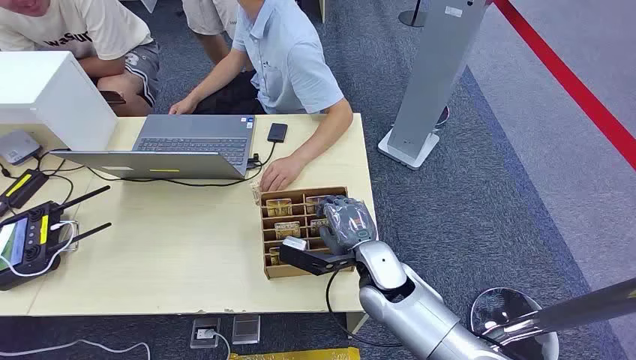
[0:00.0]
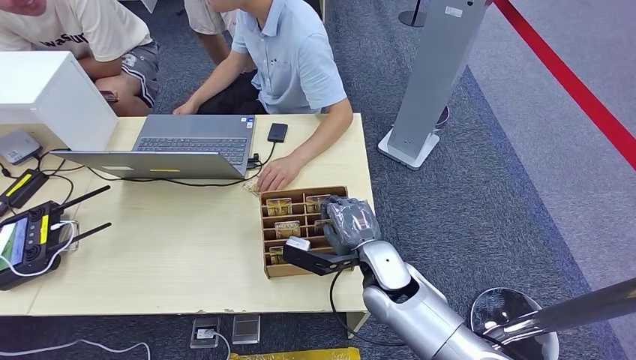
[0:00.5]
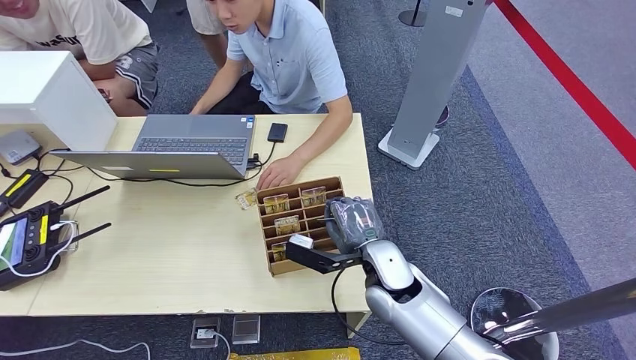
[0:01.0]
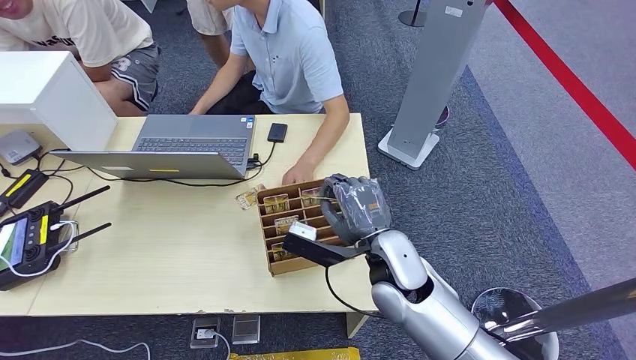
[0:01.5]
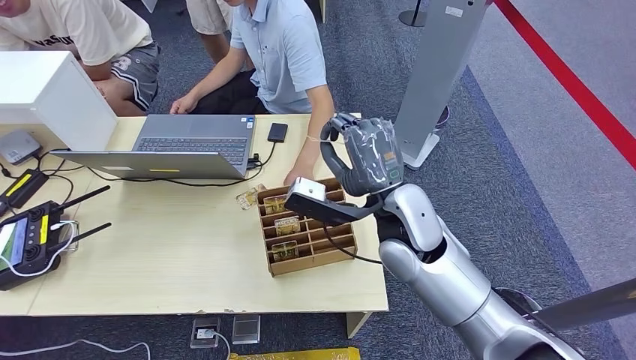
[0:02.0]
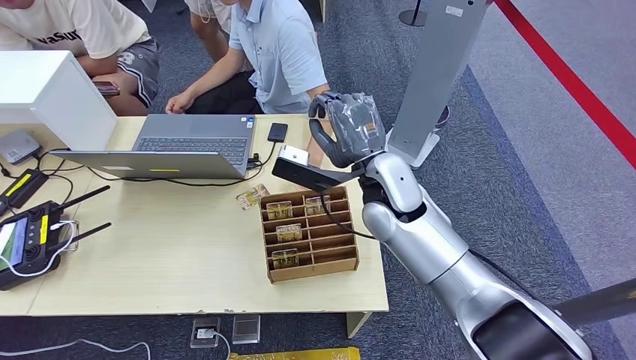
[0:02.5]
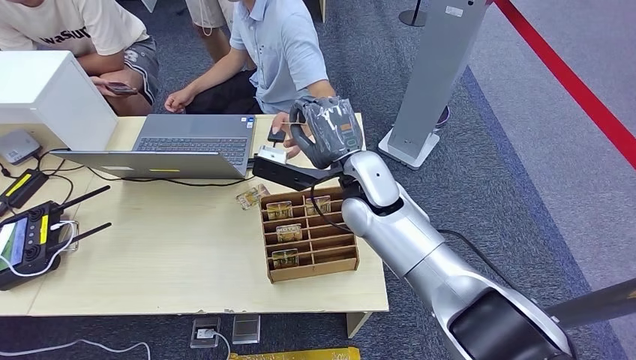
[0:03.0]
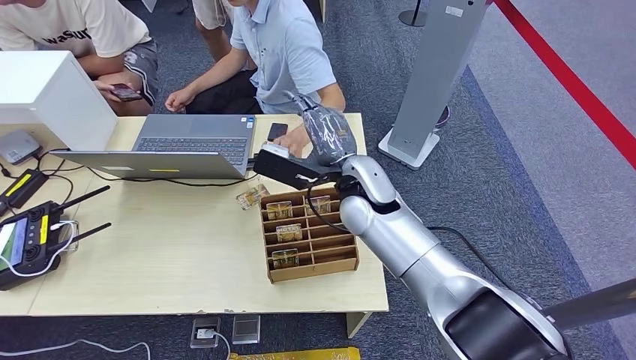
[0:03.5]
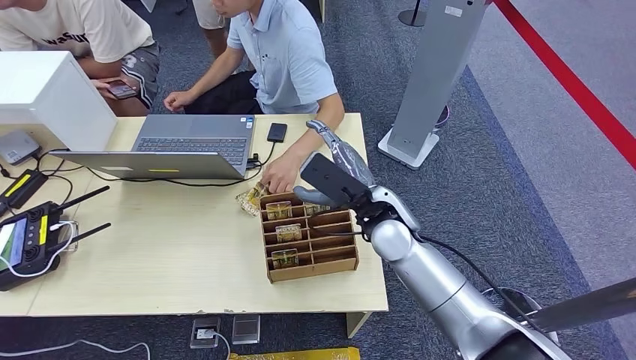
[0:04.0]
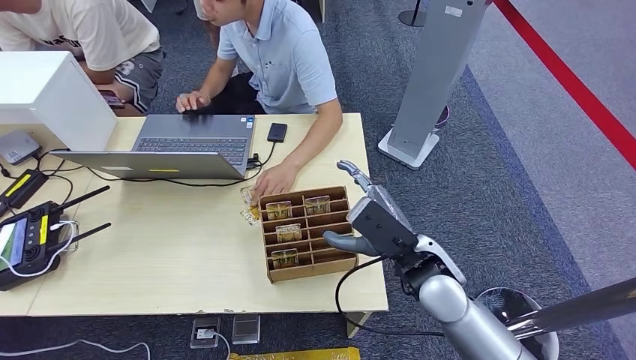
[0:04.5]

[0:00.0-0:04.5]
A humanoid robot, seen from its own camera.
Step, 0:00.0 to 0:01.5: Pick up the key card from the card box.
Step, 0:02.5 to 0:04.5: Hand the key card to the target.
0:02.0 to 0:04.5: The right hand is displaced downward by some 5 cm.

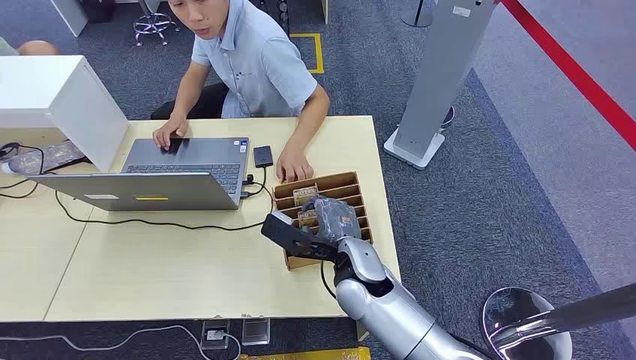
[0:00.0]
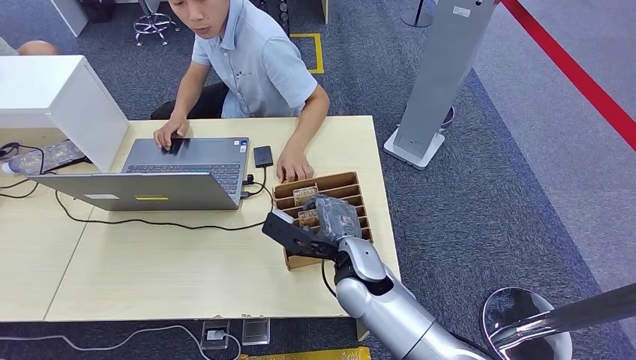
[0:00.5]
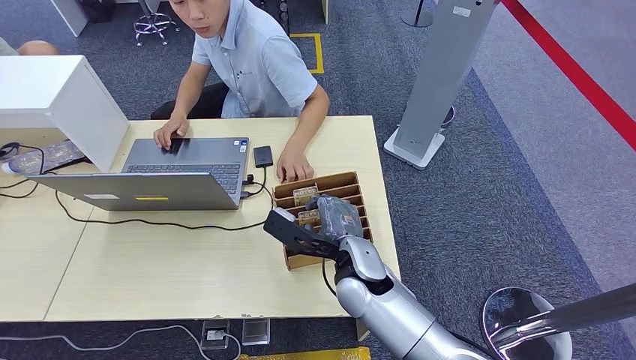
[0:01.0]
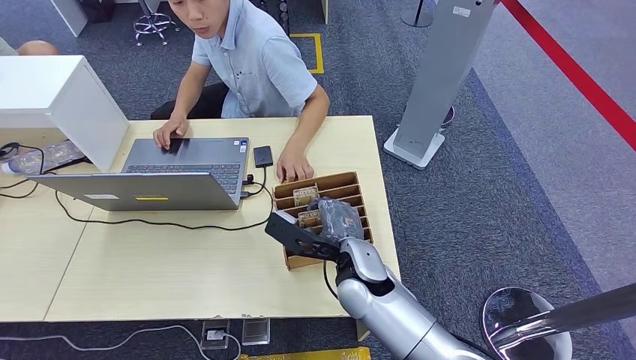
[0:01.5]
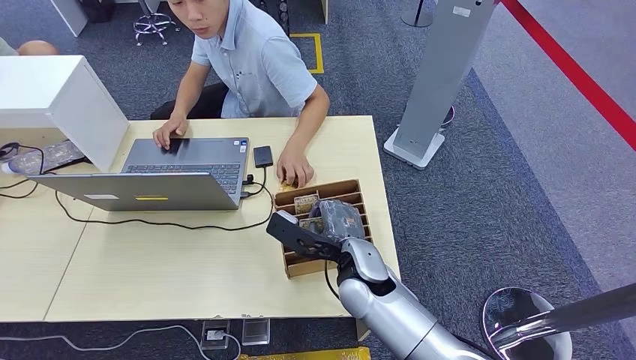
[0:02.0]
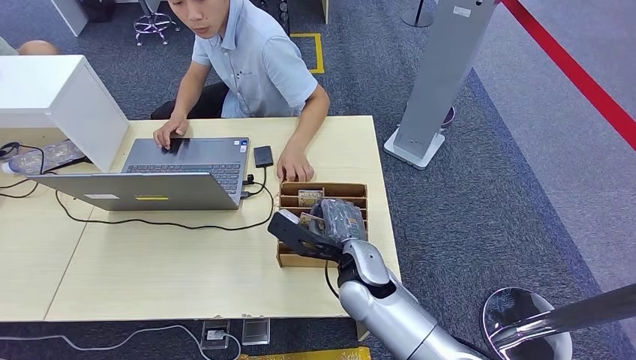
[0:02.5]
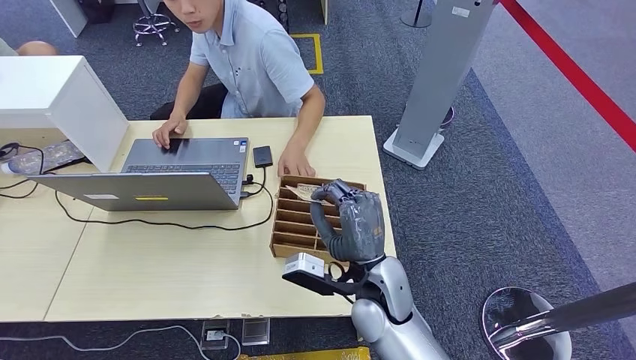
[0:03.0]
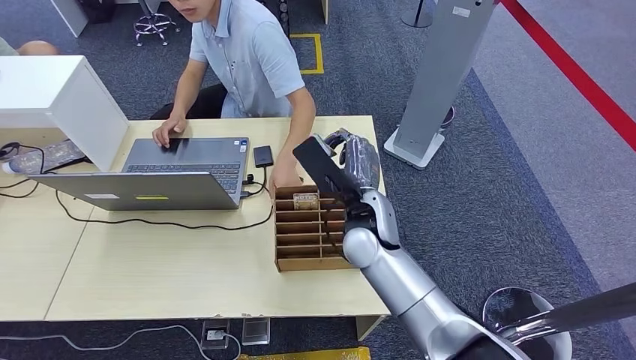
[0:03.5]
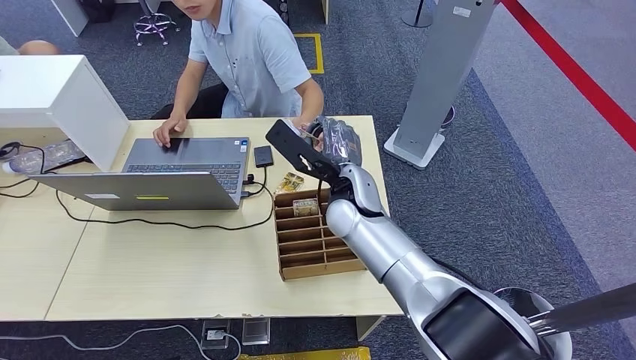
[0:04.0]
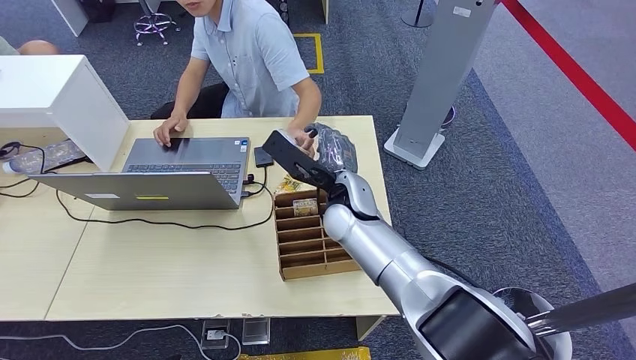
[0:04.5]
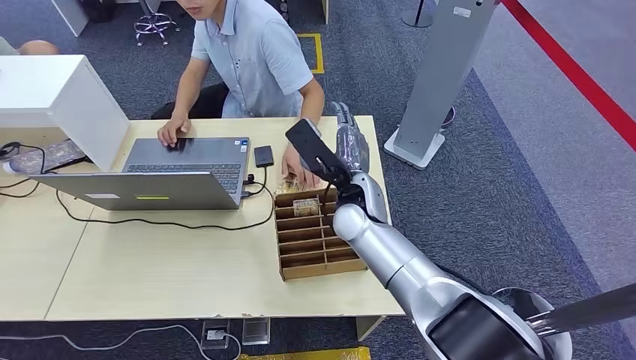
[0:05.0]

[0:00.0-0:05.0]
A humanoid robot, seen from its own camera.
Step, 0:00.0 to 0:02.5: Pick up the key card from the card box.
Step, 0:03.5 to 0:04.5: Hand the key card to the target.
0:02.5 to 0:05.0: The right hand goes roughly 10 cm forward and upward.
